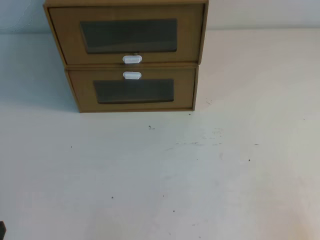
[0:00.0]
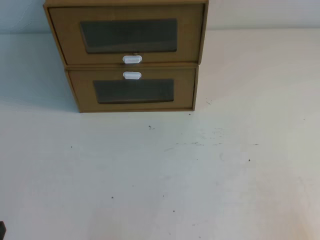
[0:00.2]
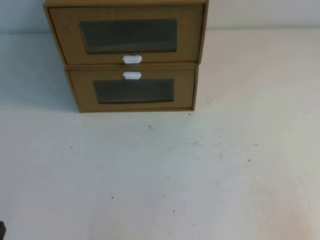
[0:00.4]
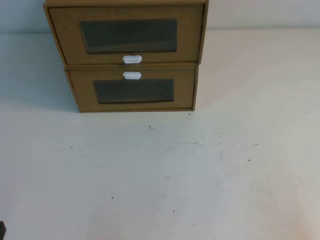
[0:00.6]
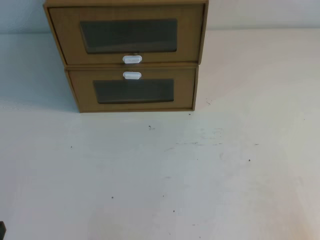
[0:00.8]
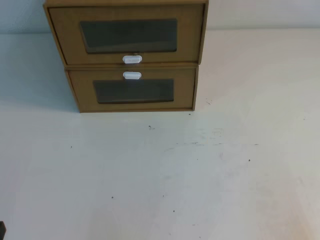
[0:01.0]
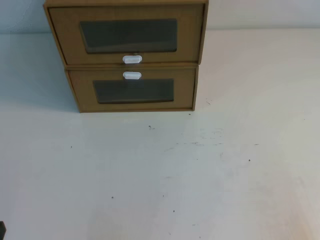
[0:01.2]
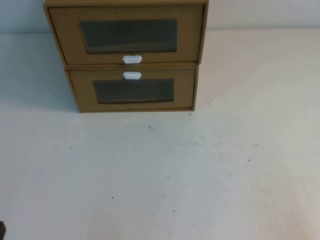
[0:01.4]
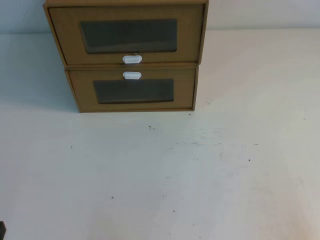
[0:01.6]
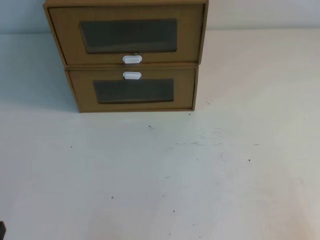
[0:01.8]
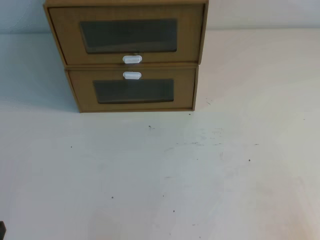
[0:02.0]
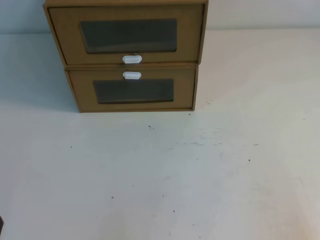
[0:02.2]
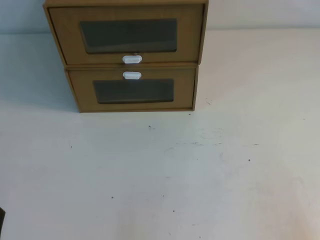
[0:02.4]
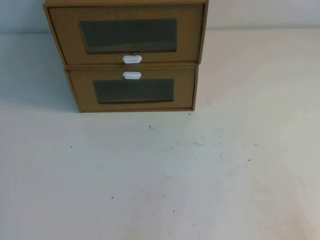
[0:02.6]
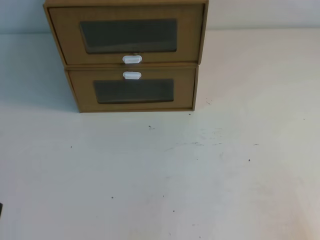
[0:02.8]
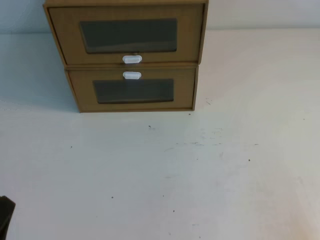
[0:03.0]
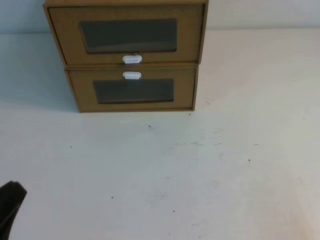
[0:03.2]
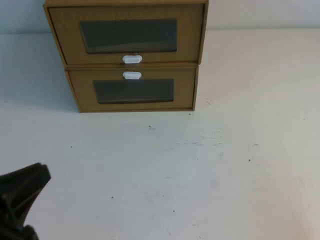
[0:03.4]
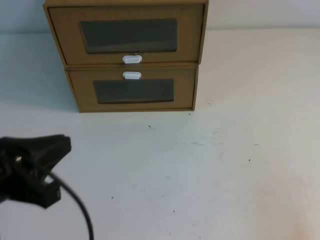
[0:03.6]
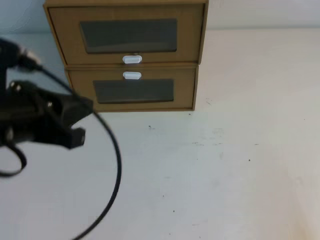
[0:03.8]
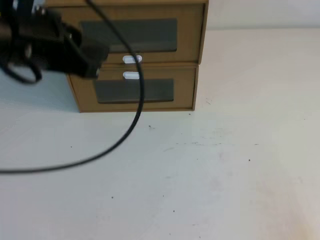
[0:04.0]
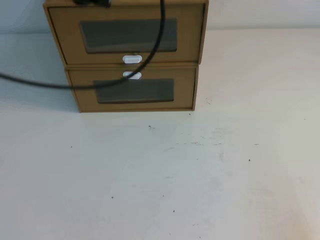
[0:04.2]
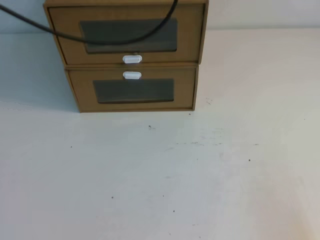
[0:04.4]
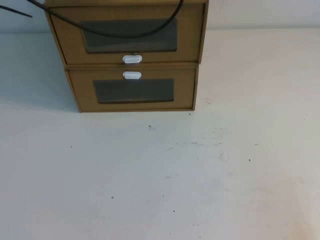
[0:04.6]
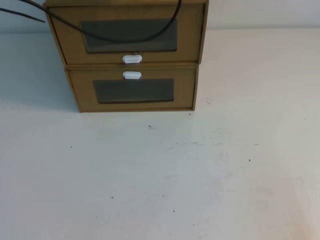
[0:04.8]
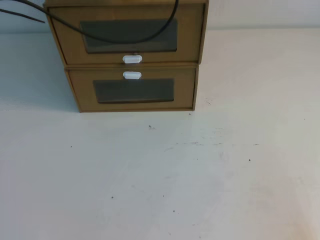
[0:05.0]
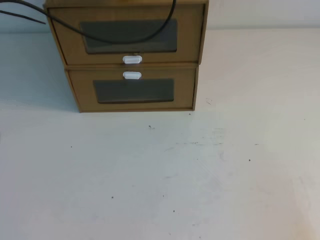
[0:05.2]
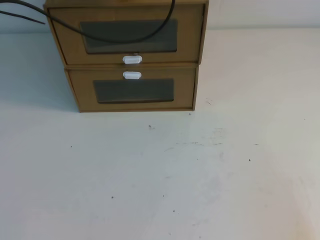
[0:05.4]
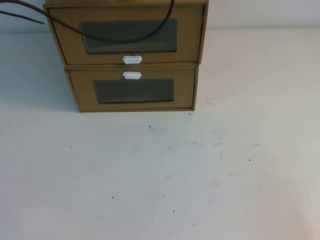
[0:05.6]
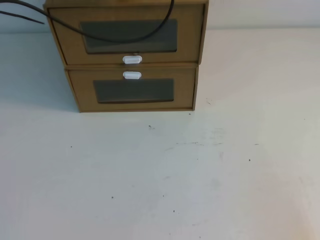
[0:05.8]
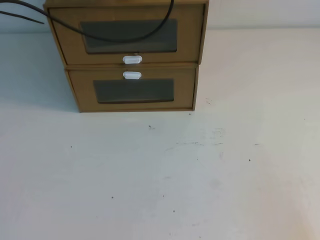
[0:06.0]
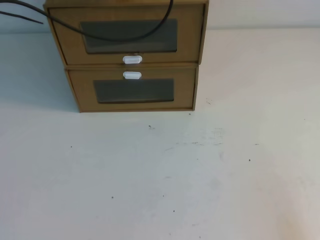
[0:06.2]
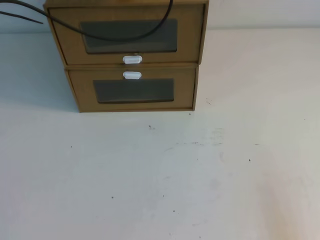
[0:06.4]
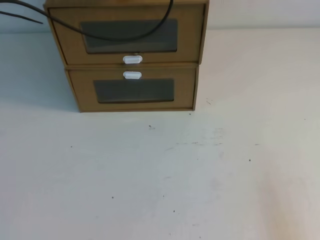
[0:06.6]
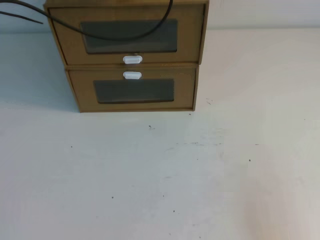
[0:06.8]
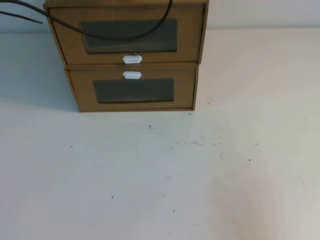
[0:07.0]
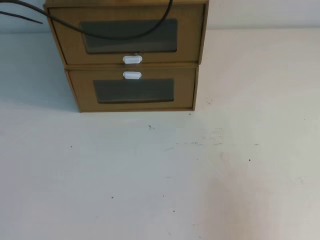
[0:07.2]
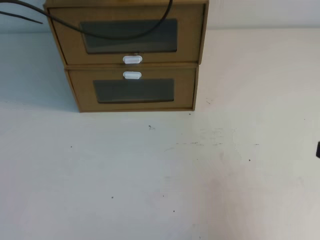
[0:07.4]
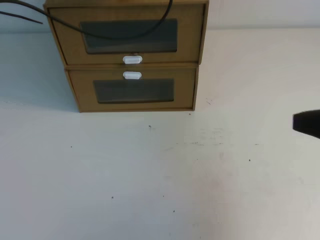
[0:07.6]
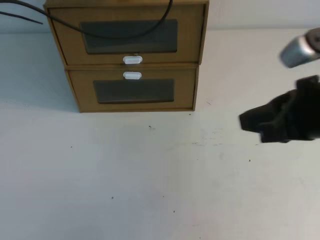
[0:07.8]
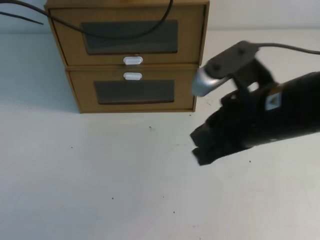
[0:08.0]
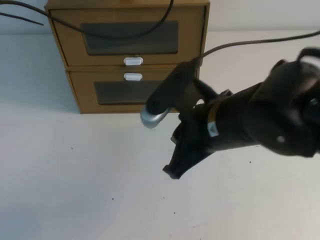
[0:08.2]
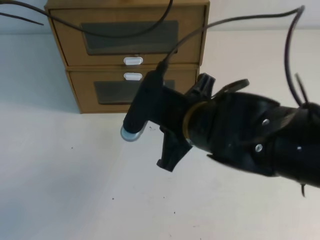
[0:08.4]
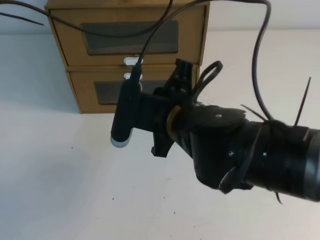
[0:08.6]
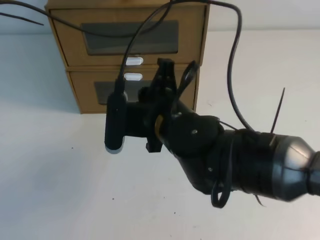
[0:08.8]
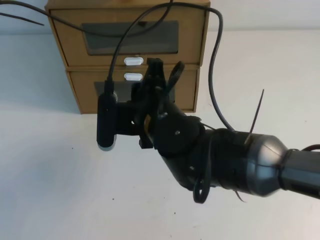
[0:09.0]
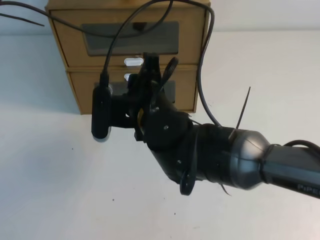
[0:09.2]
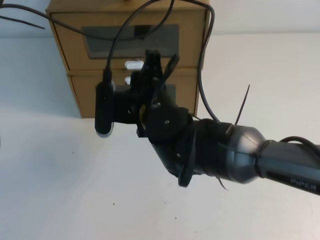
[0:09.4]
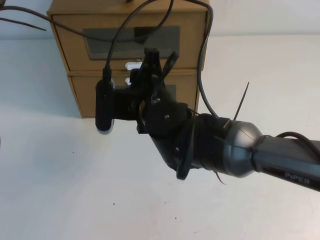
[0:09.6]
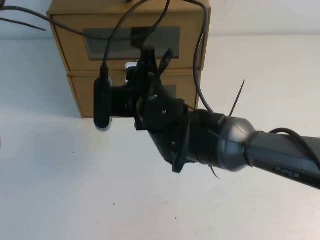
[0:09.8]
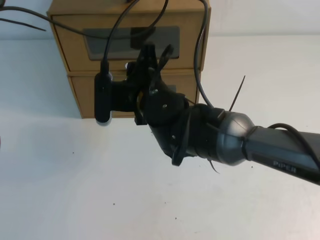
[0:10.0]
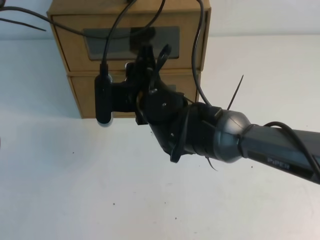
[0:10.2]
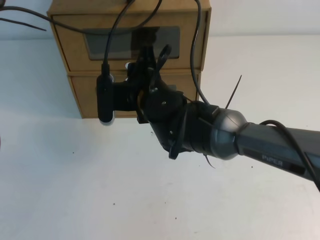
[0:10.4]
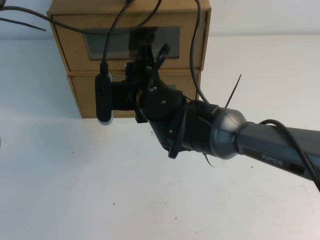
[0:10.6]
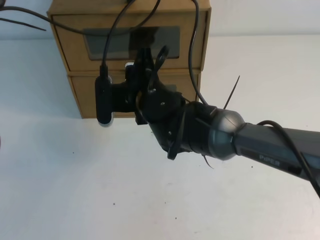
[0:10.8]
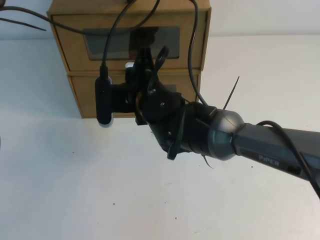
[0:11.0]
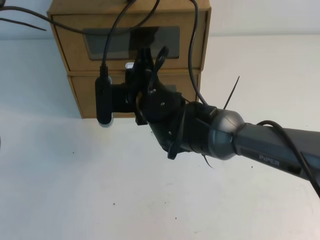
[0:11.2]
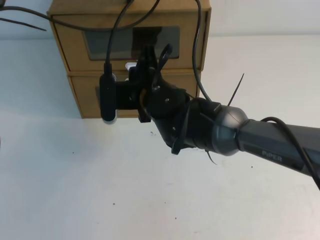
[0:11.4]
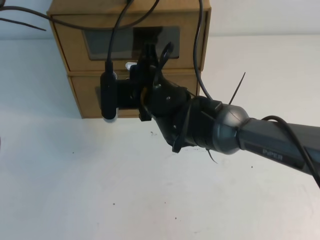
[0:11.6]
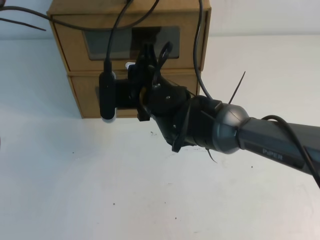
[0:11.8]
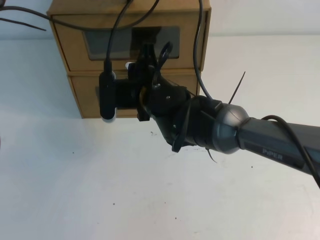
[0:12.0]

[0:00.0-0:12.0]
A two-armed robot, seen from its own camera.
Task of the whole recording: open the shoebox on the table.
0:00.0 to 0:01.6: Both grippers stay about where they are.
0:03.0 to 0:04.4: The left gripper heads forward, upward and to the right, covering approximately 40 cm.
0:04.4 to 0:06.0: The left gripper shifts roughly 10 cm forward and downward.
0:06.0 to 0:07.6: The right gripper moves upward, forward and to the left, some 20 cm.
0:07.6 to 0:09.0: The right gripper moves to the left, roughly 25 cm, and opens up.
0:09.0 to 0:10.4: The right gripper heads forward, covering roughly 5 cm, and opens.
0:10.4 to 0:12.0: The right gripper closes its fingers.

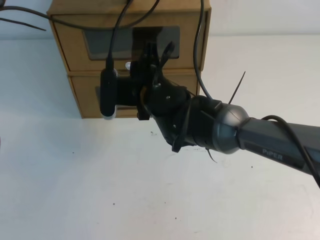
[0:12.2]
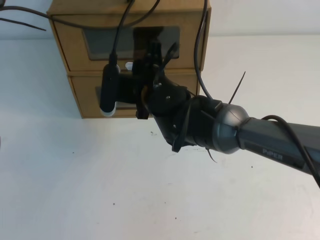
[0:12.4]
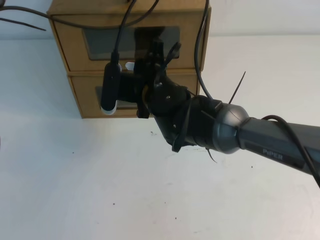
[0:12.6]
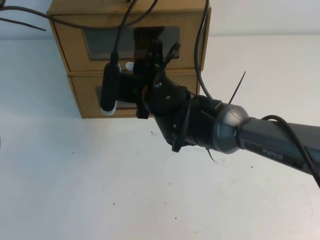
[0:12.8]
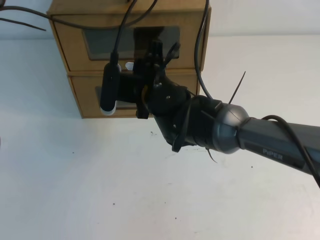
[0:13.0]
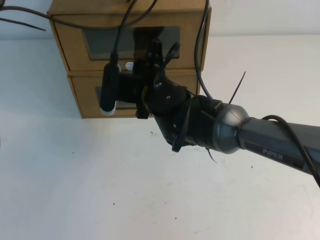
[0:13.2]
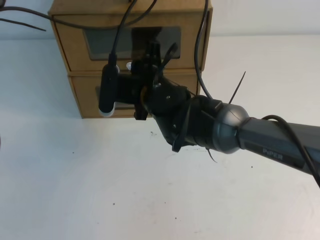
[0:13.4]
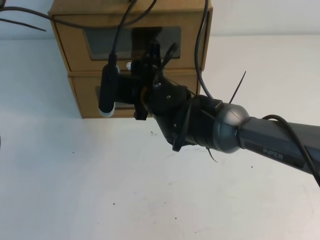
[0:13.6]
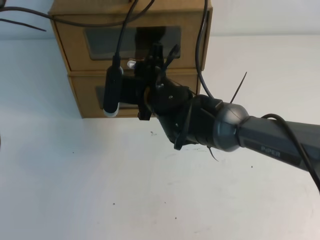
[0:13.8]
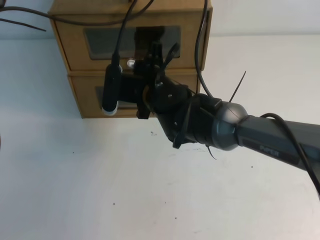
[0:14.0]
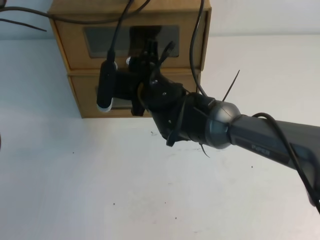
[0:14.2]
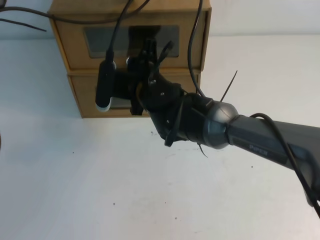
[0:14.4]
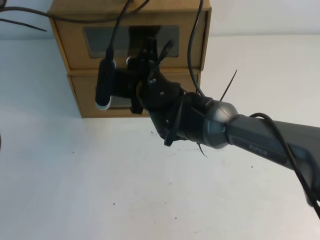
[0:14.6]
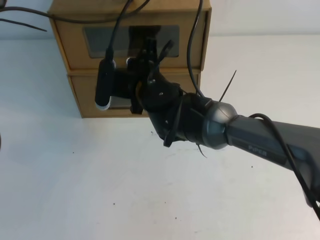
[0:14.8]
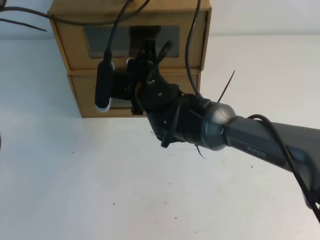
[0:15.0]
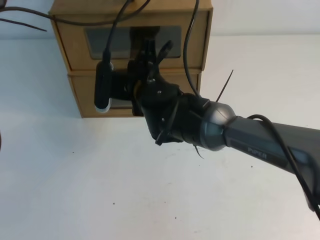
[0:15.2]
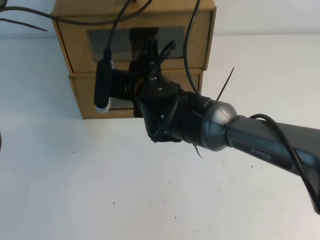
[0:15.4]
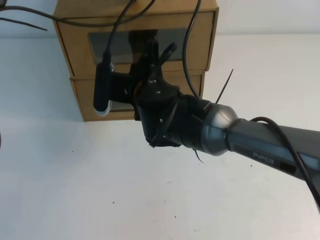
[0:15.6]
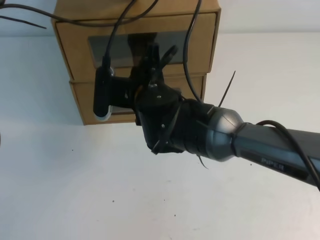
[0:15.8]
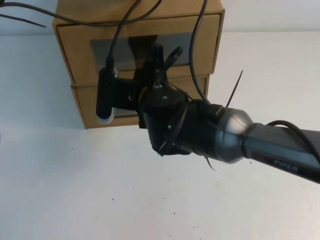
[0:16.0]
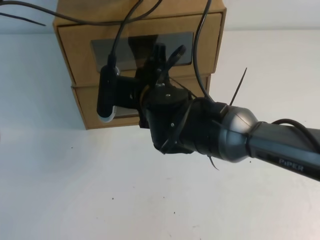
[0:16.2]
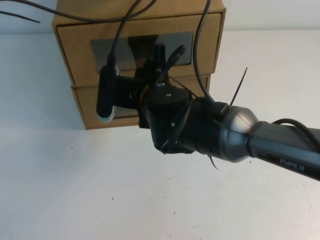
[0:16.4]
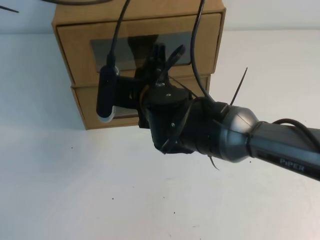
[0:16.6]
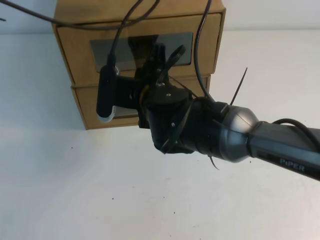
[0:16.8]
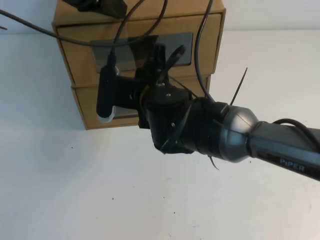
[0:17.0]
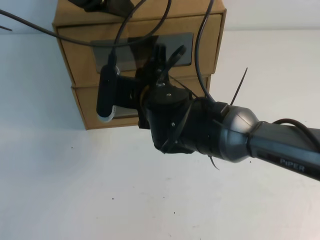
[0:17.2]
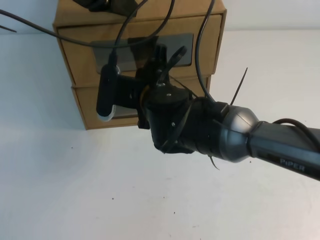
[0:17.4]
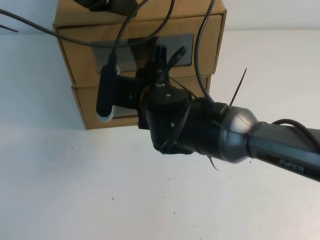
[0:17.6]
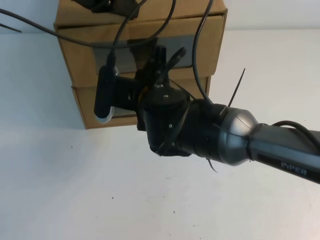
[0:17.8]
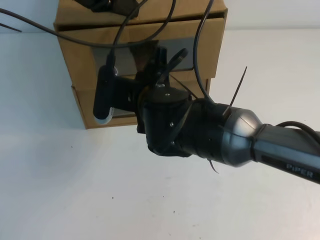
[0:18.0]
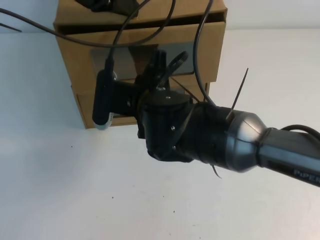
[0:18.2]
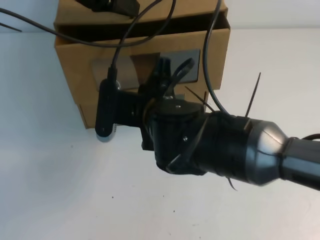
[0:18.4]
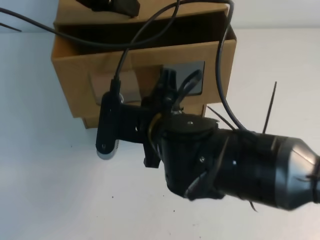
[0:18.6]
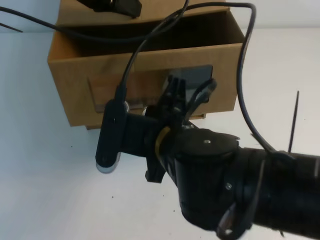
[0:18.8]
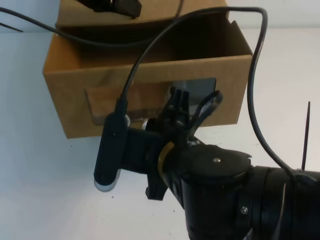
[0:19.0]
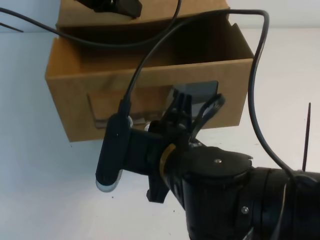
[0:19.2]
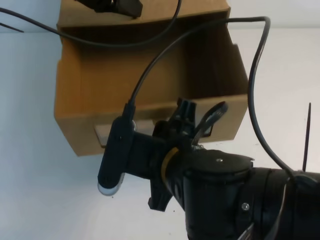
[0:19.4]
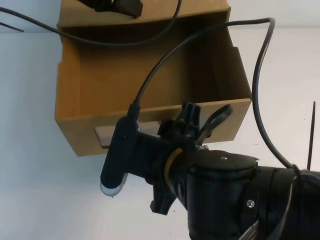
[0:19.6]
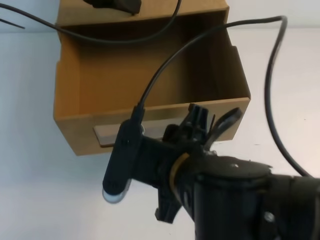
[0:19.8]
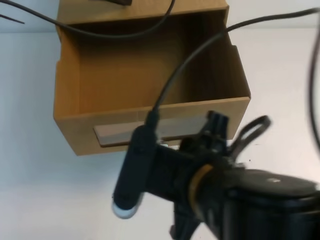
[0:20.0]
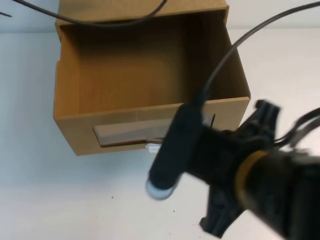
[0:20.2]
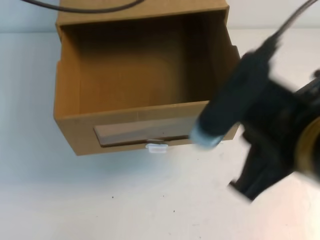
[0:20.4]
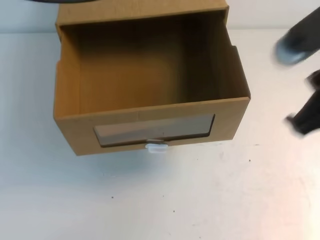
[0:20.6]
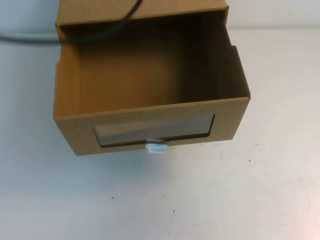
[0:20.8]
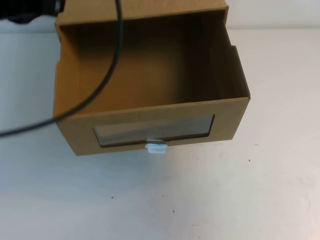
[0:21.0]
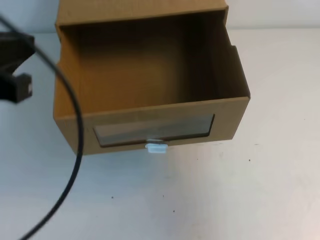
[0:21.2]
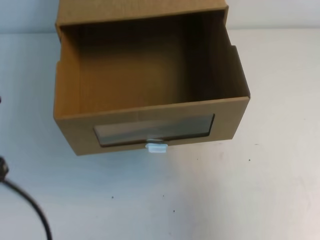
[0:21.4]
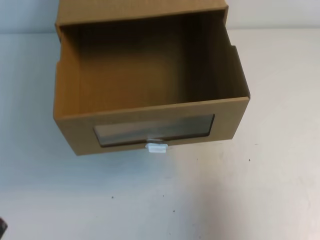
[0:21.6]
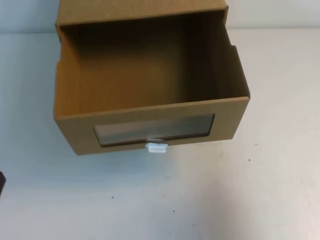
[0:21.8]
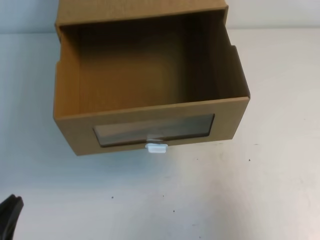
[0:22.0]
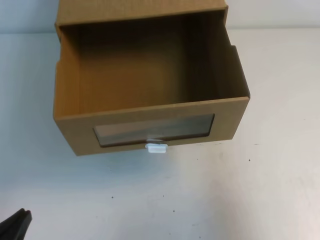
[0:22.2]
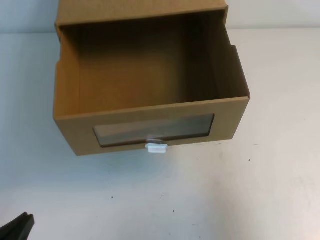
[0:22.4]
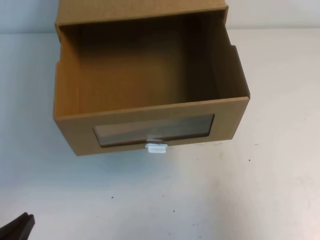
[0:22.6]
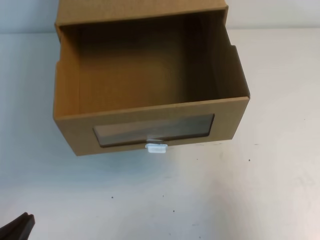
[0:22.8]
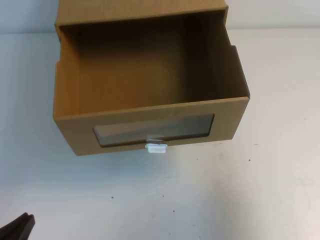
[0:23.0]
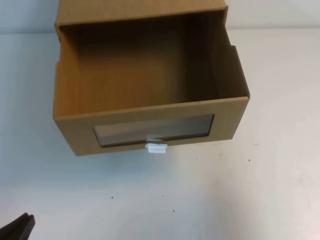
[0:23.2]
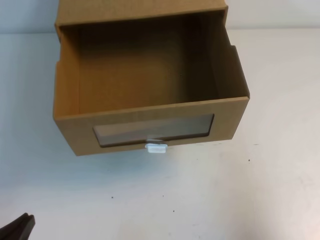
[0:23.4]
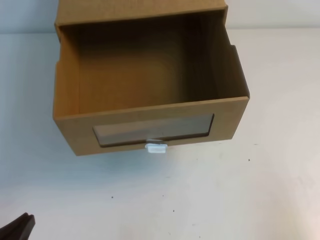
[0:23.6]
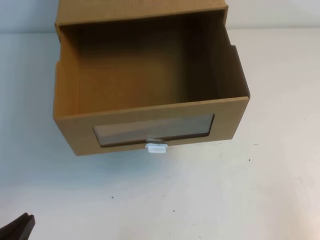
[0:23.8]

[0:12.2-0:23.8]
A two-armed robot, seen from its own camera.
Task of the whole recording: open the shoebox on the table.
0:12.2 to 0:13.6: The grippers stay close to where they were, moving slightly.
0:13.6 to 0:15.0: The right gripper closes.
0:15.0 to 0:16.6: The right gripper is displaced backward by roughly 5 cm.
0:16.6 to 0:18.0: The grippers stay close to where they were, moving slightly.
0:18.0 to 0:19.4: The right gripper travels backward by about 15 cm, and opens its fingers.
0:19.4 to 0:21.0: The right gripper shifts approximately 25 cm to the right and upward, and closes its fingers; the left gripper moves backward and upward, roughly 20 cm.
0:21.0 to 0:22.4: The left gripper goes approximately 35 cm downward and backward; the right gripper is displaced downward by roughly 10 cm.
0:22.4 to 0:23.8: The right gripper goes about 15 cm downward and backward.
